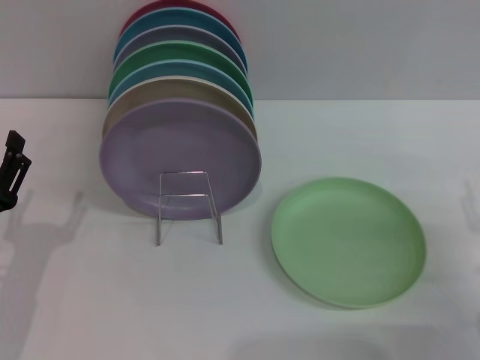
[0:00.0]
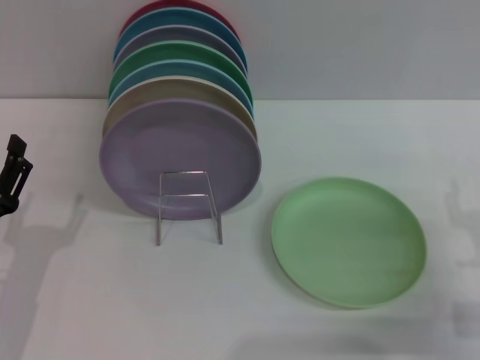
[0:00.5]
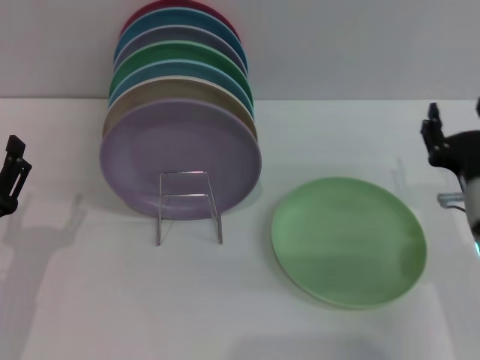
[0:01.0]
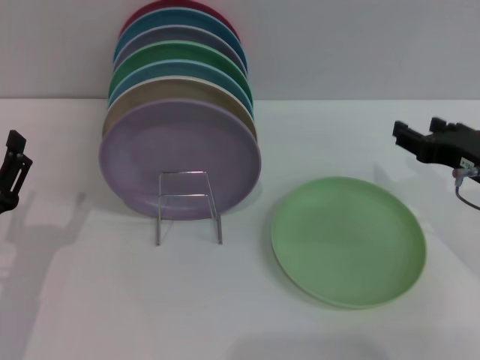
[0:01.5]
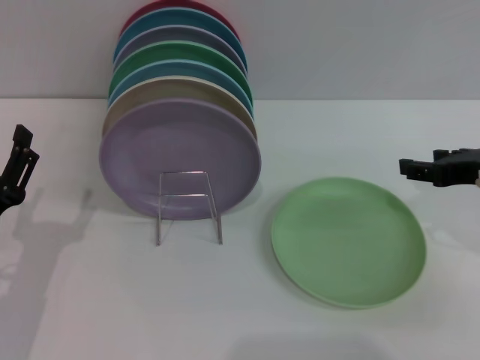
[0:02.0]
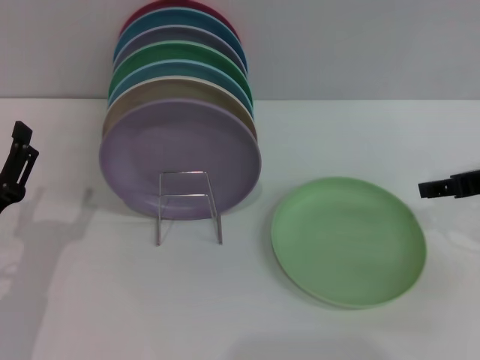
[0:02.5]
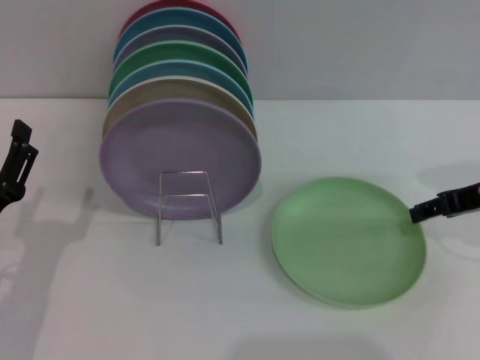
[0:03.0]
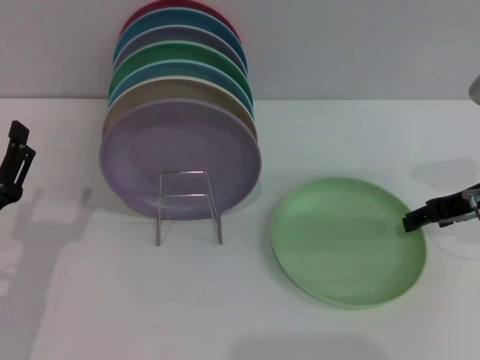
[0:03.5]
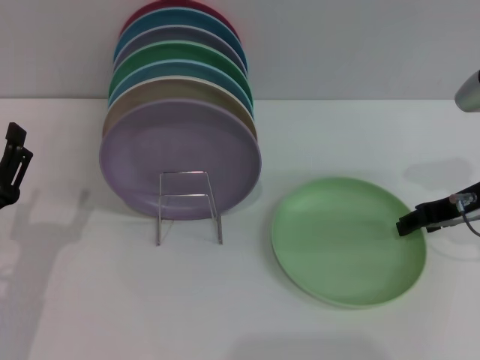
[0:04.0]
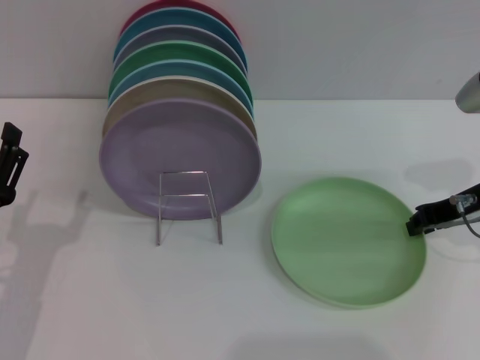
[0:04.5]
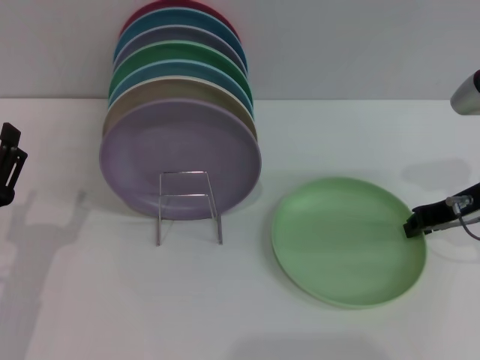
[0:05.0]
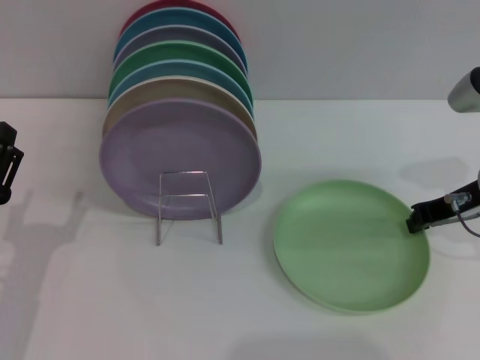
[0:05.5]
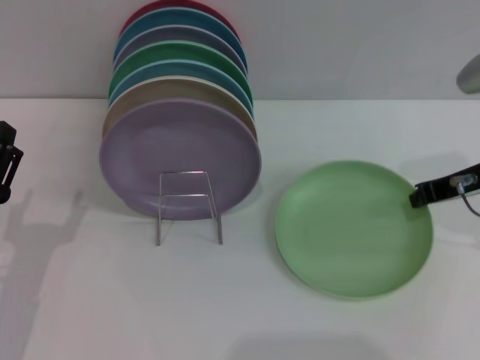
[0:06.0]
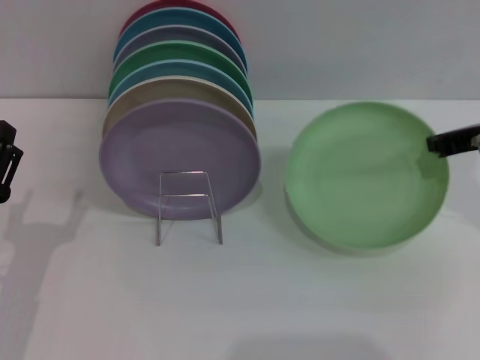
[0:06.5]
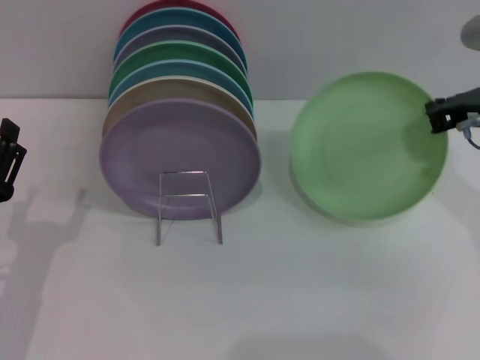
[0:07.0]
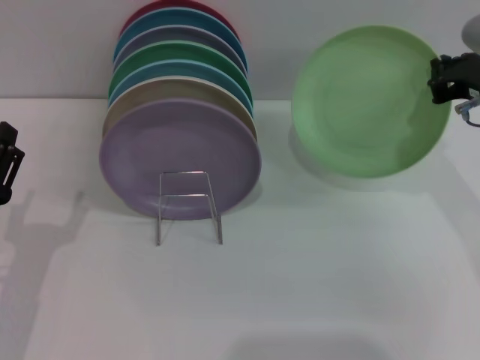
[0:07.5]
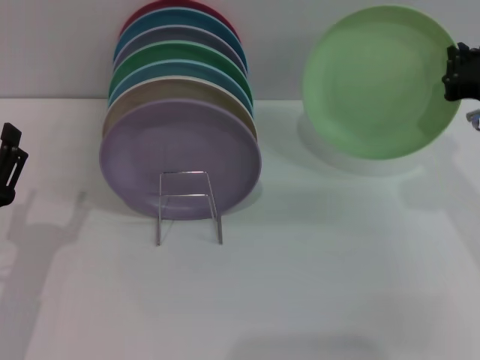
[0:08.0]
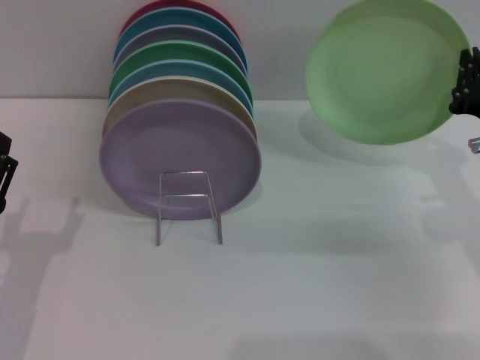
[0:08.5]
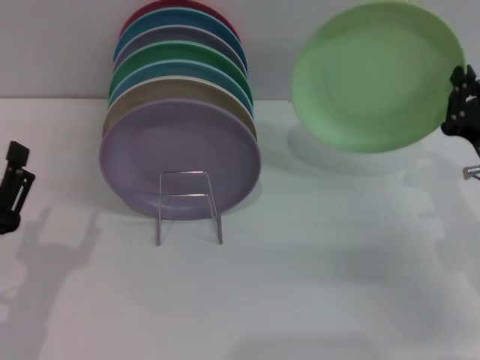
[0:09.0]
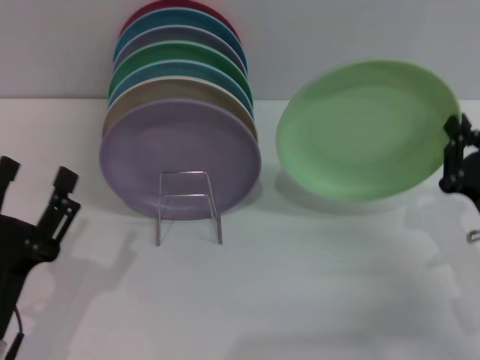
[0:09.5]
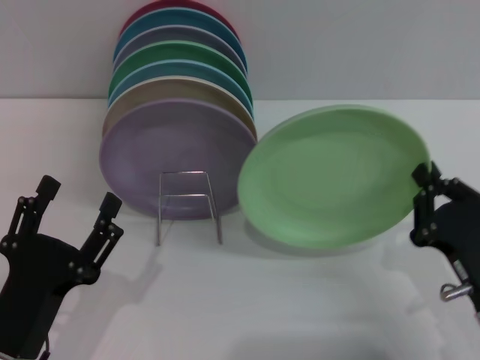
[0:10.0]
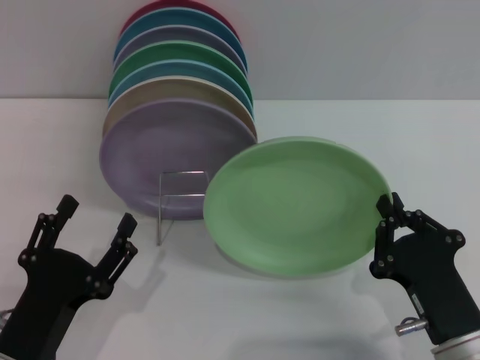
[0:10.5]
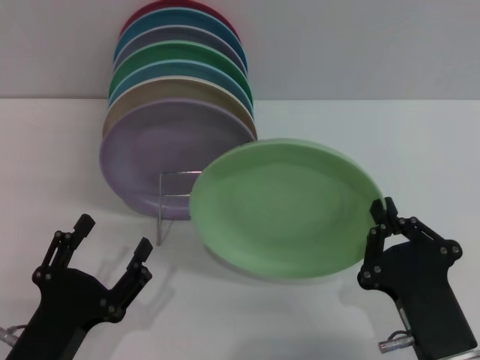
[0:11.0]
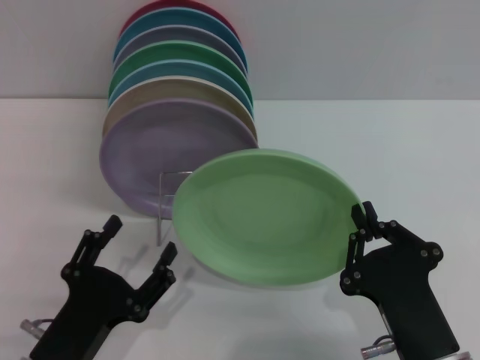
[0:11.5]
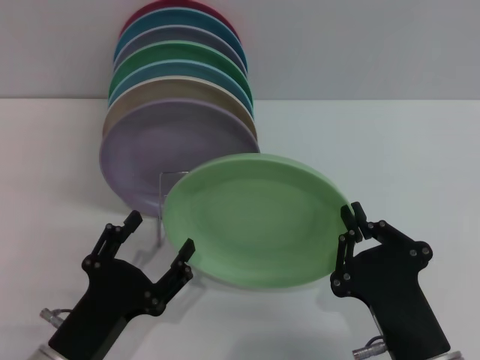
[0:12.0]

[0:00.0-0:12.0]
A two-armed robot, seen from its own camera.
Task of the whole recording: Grip the plate with one hand, pass it to the other, then set it on the shelf.
Step, 0:00.0 to 0:08.0: Pick up the plate with the right gripper.
0:00.0 to 0:02.0: The right gripper travels upward and forward by some 15 cm.
0:02.0 to 0:04.0: The right gripper shifts by approximately 5 cm.
0:04.0 to 0:06.0: The right gripper closes.
0:08.0 to 0:10.0: The left gripper shifts approximately 5 cm backward; the right gripper goes roughly 20 cm backward and downward.
0:10.0 to 0:12.0: The right gripper goes approximately 10 cm to the left and backward.

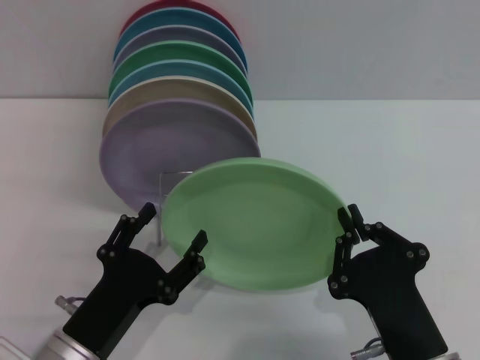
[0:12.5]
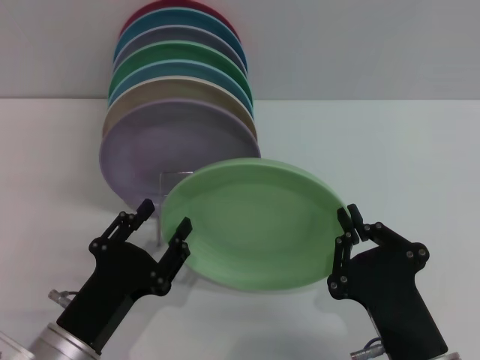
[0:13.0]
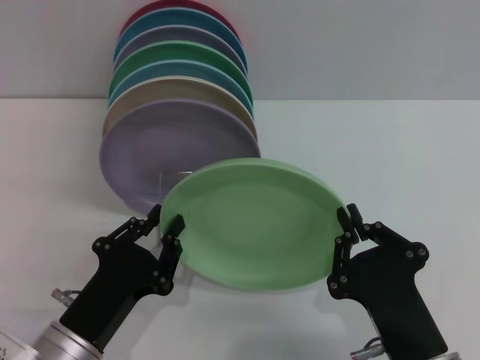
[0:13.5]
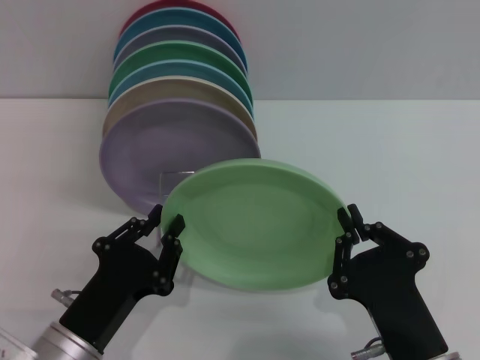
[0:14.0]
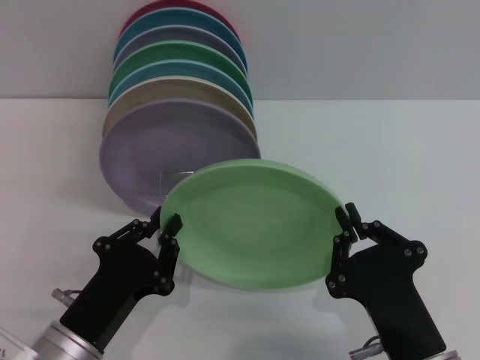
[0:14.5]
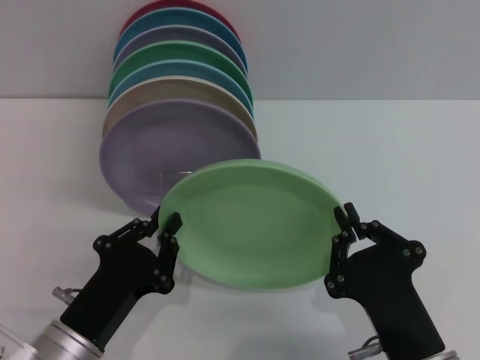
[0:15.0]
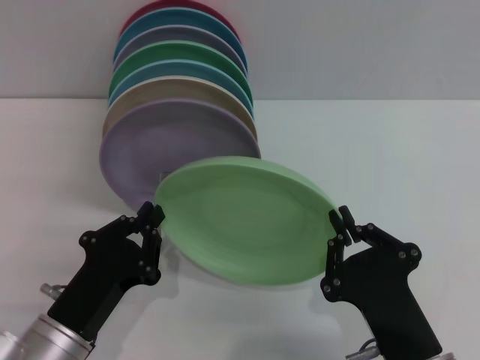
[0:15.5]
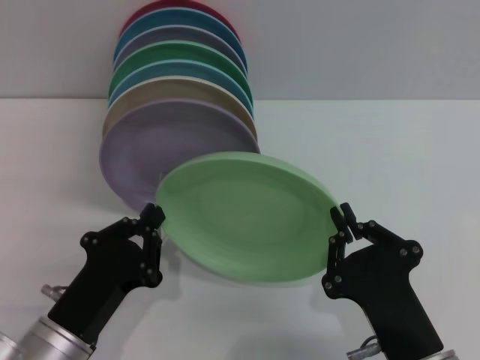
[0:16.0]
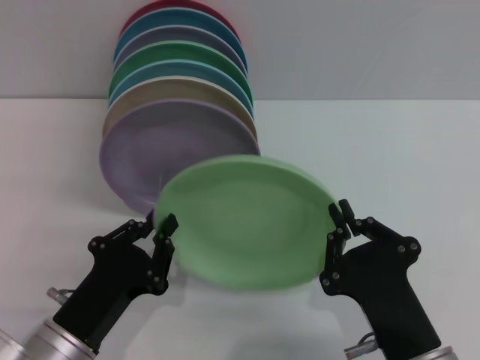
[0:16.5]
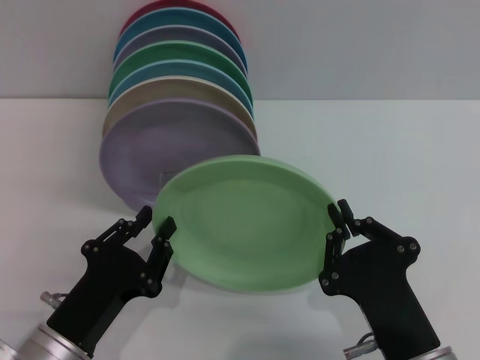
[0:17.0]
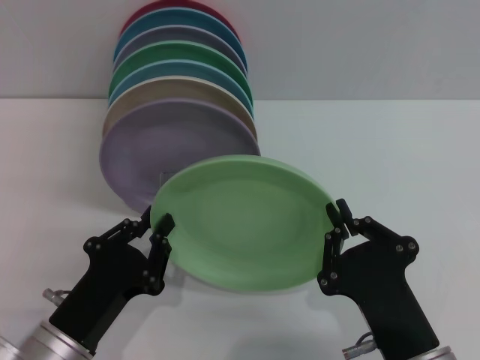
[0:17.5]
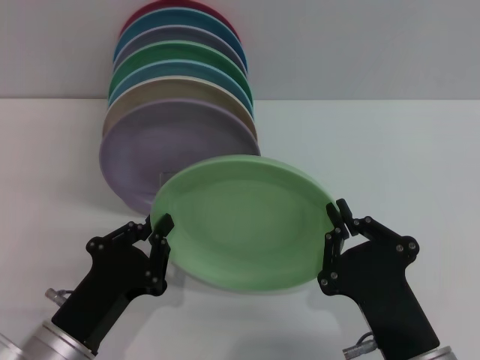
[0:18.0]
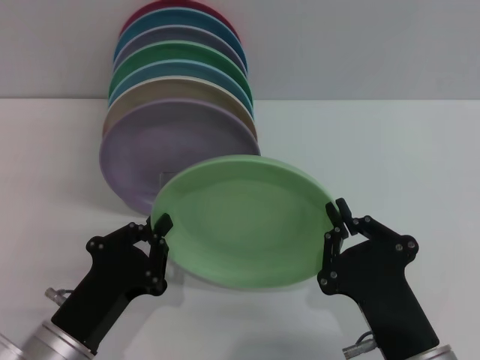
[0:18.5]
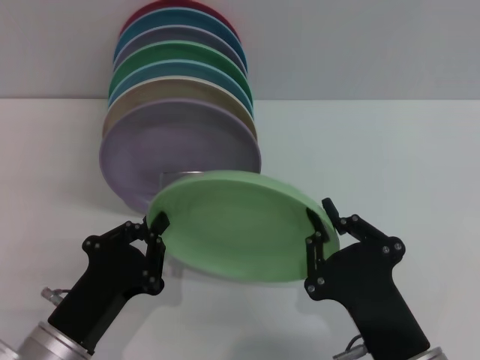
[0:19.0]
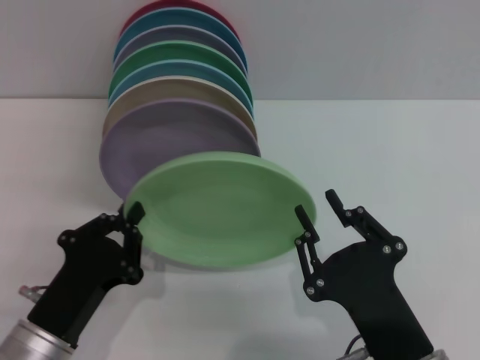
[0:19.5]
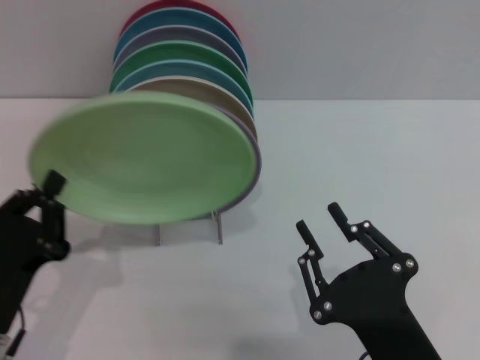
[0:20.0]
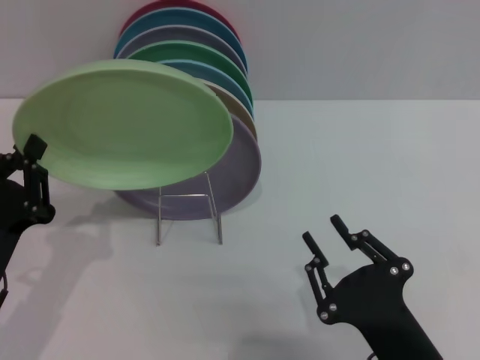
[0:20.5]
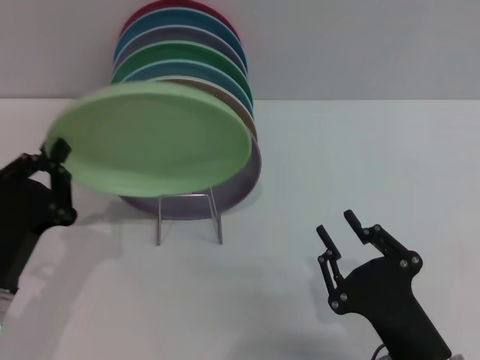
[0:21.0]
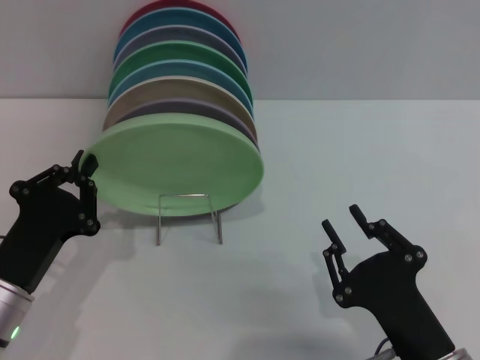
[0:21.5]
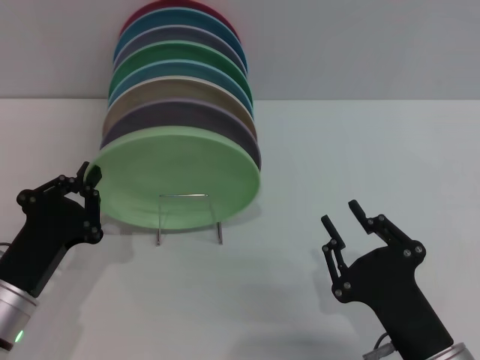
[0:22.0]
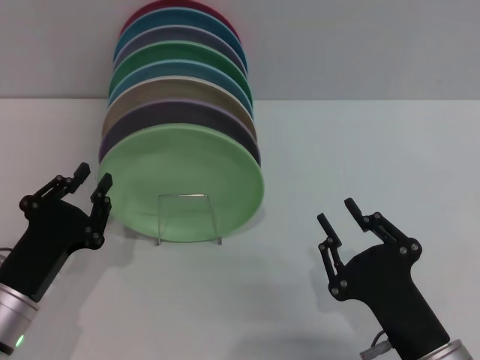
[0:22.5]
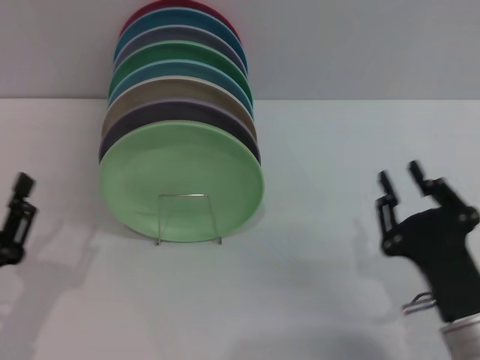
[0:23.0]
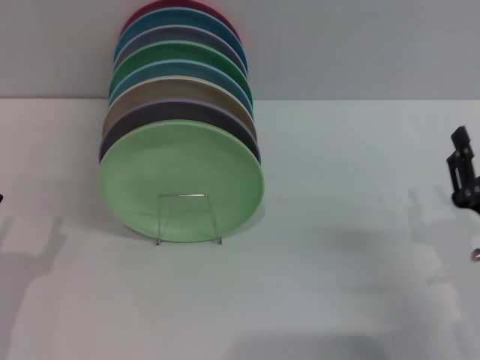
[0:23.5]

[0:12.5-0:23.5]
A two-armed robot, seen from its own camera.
Task of the whole recording: Grip the plate with one hand, pass it to the other, then set it on the shelf.
Step, 0:12.5 to 0:19.5: Pass the plate from the right gripper to the left gripper.
Step, 0:20.0 to 0:22.5: Place the plate on the shelf with the left gripper.
0:12.5 to 0:14.5: The left gripper closes its fingers.
0:14.5 to 0:18.0: Neither gripper changes place.
0:18.0 to 0:20.0: The right gripper opens up. The left gripper ends up approximately 5 cm from where it was.
0:21.5 to 0:23.5: The left gripper moves to the left, some 5 cm, and opens up, while the right gripper travels to the right and forward by some 10 cm.

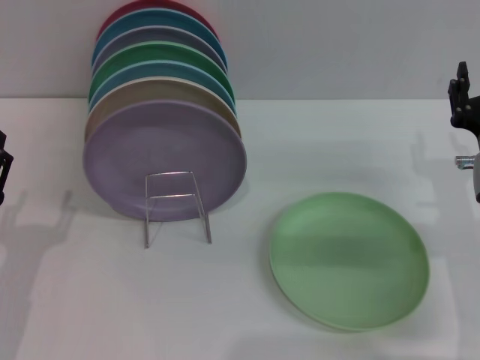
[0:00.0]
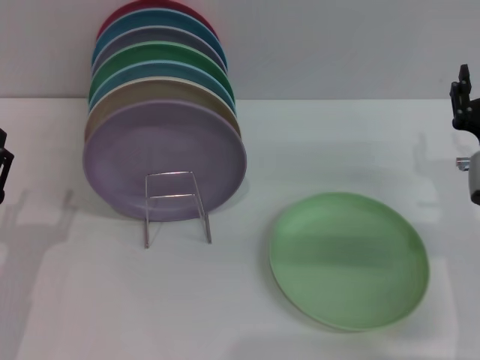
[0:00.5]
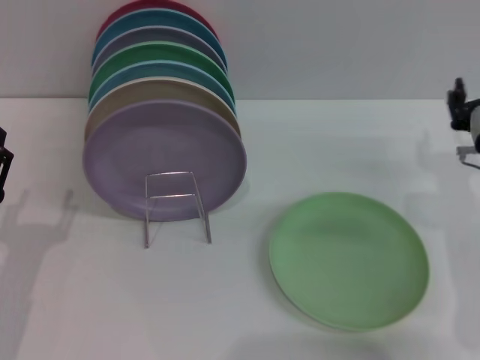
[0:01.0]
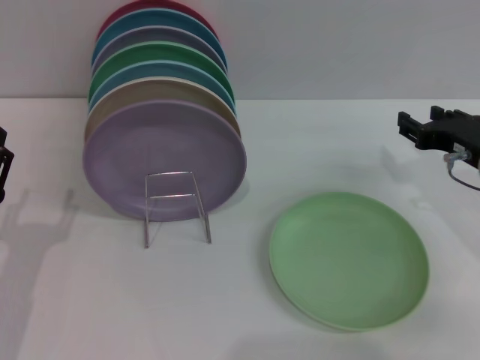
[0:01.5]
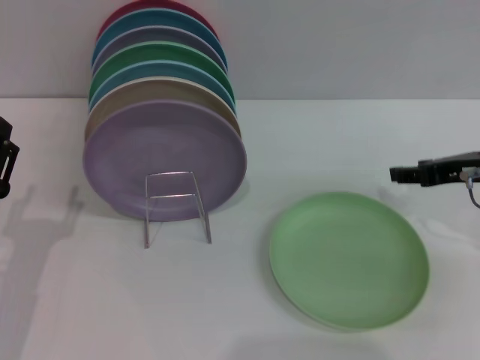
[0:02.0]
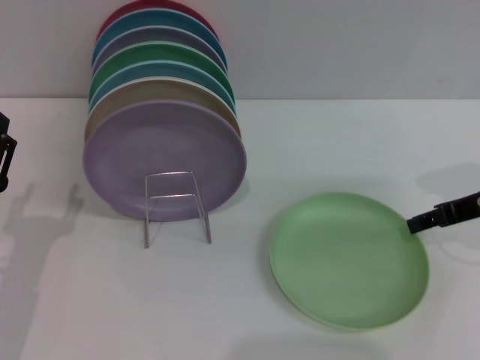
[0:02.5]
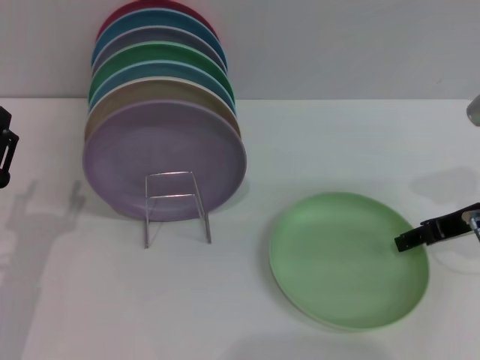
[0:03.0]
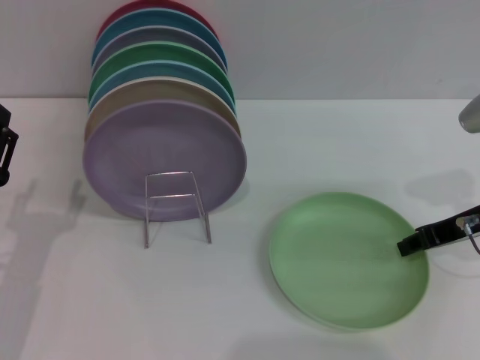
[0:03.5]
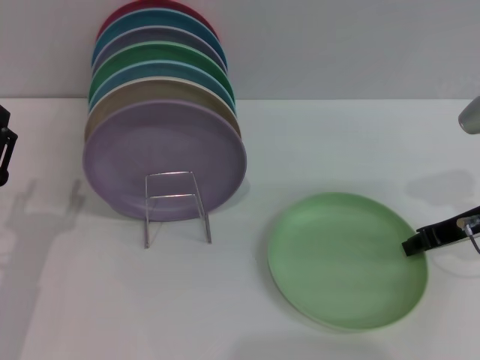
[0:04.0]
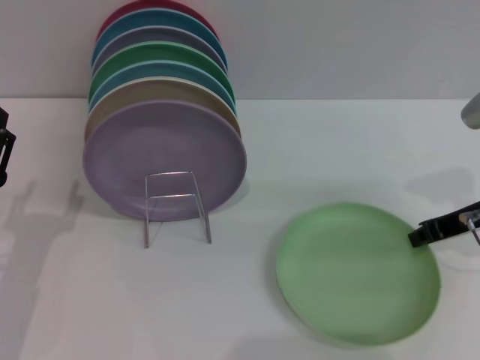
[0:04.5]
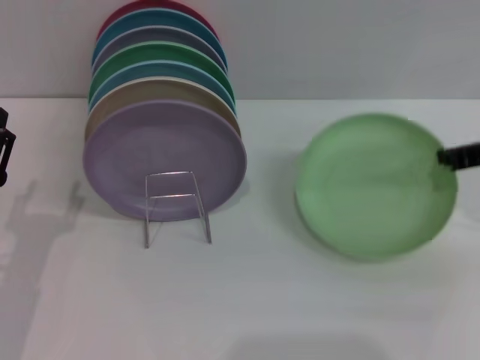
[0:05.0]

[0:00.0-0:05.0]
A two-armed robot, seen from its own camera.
Task of the whole recording: Grip the plate with one hand, pass it to the other, then set it on the shelf.
0:00.0 to 0:02.5: The right gripper is displaced upward by approximately 10 cm.
0:02.5 to 0:05.0: The right gripper closes its fingers.
